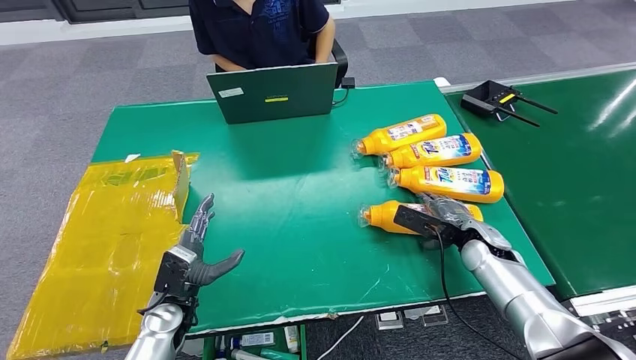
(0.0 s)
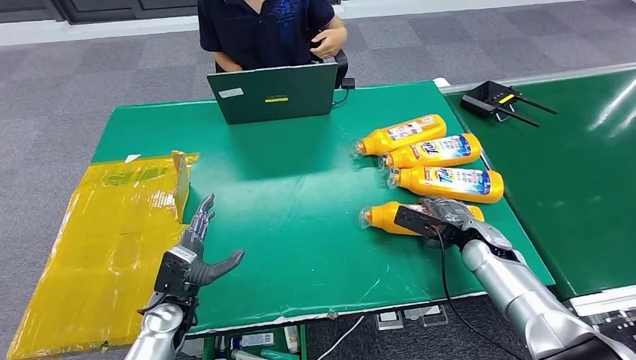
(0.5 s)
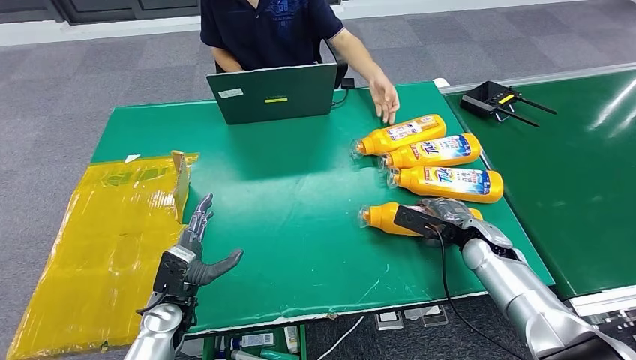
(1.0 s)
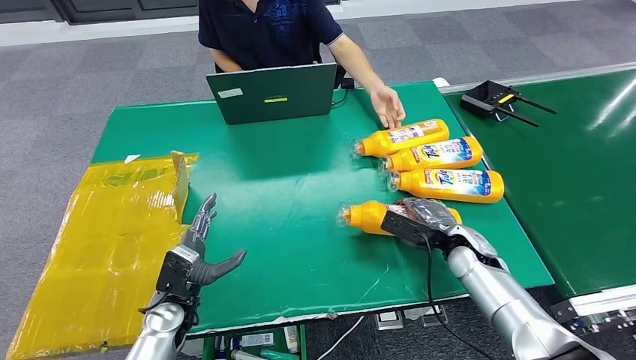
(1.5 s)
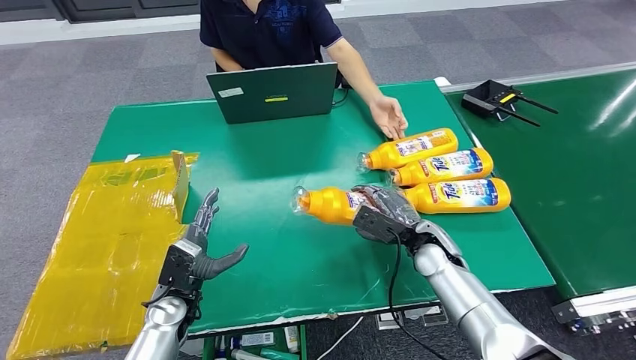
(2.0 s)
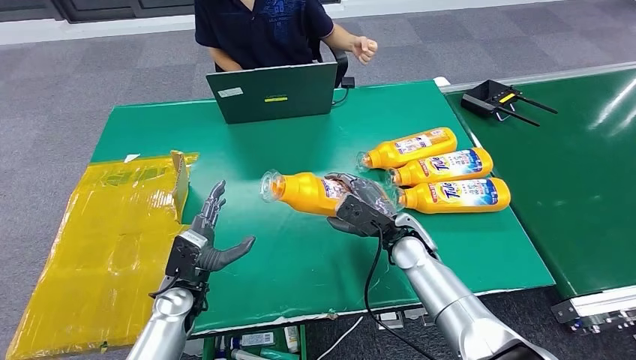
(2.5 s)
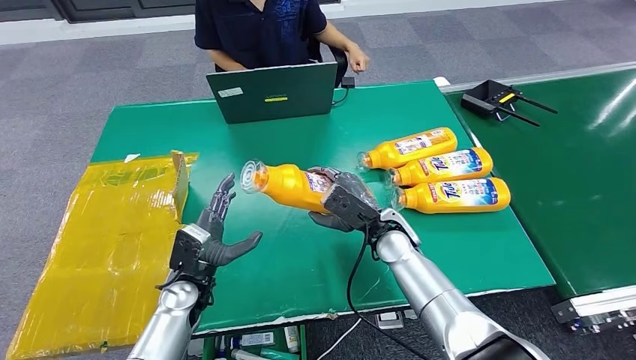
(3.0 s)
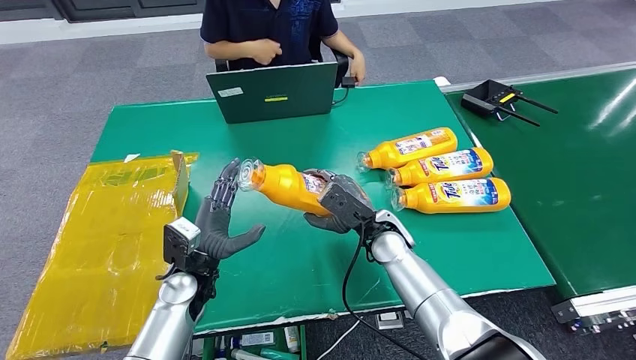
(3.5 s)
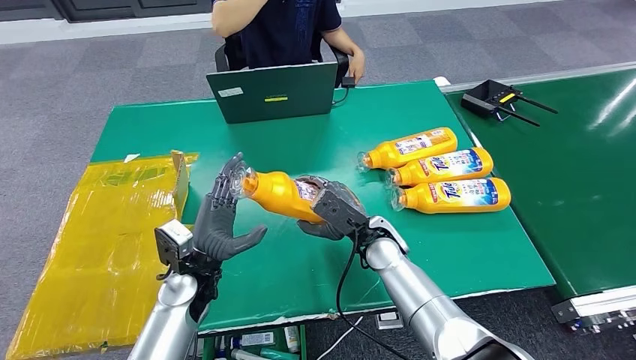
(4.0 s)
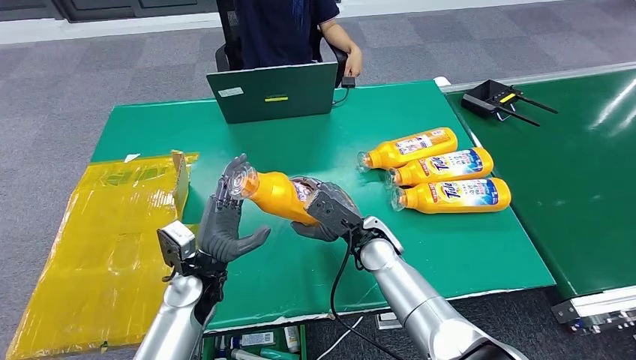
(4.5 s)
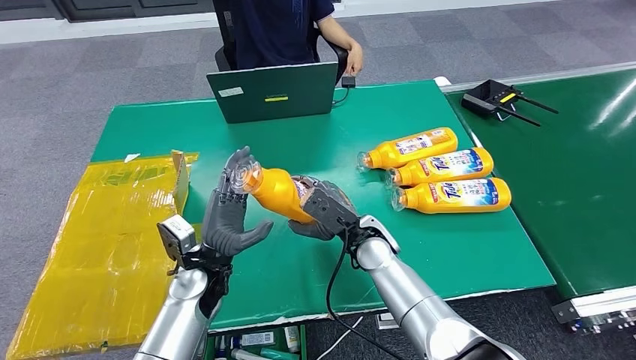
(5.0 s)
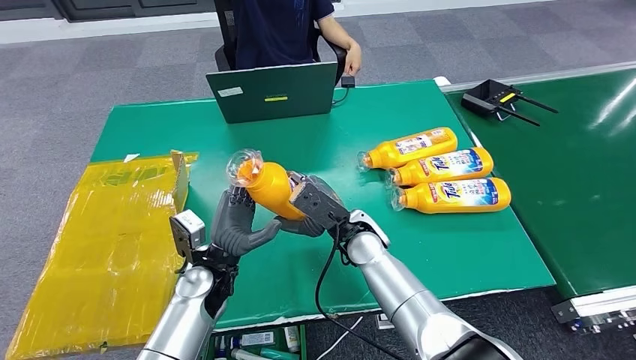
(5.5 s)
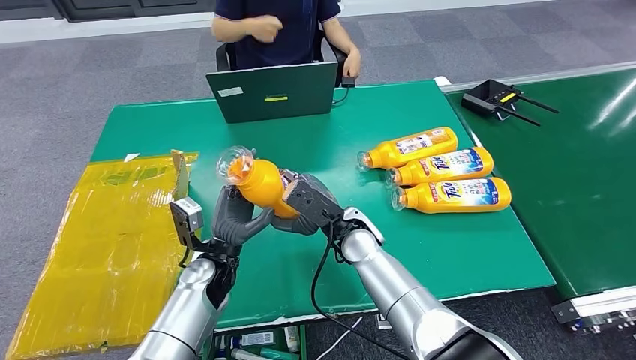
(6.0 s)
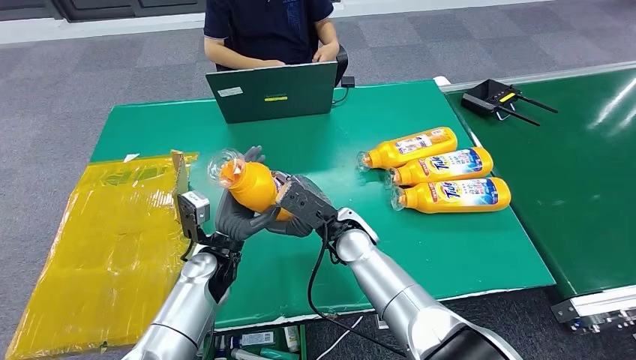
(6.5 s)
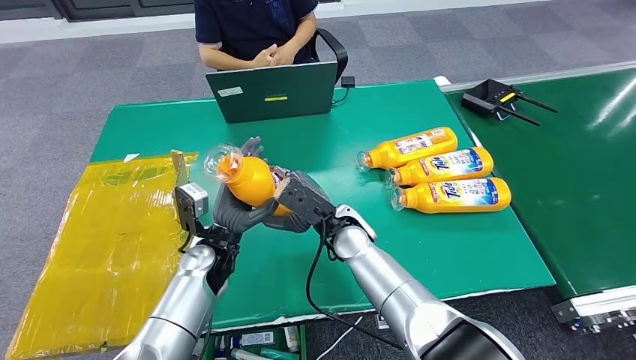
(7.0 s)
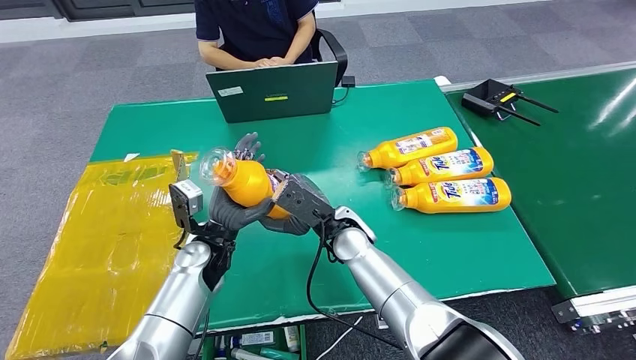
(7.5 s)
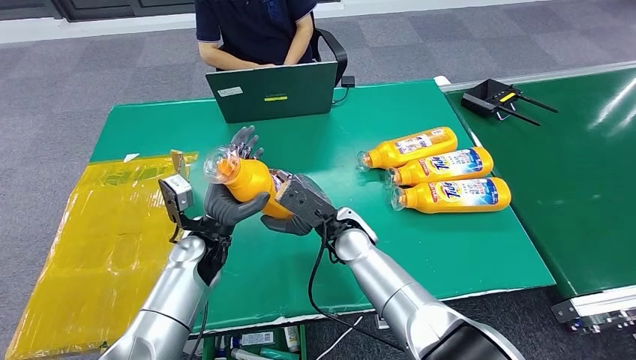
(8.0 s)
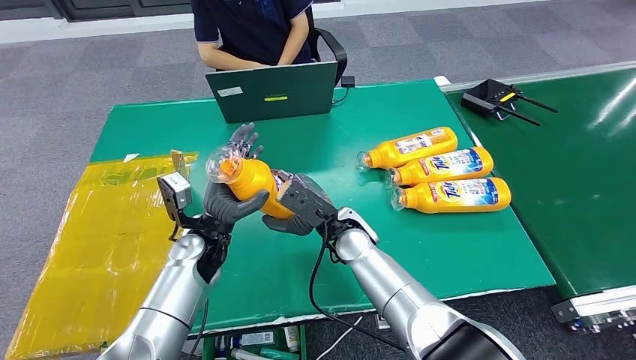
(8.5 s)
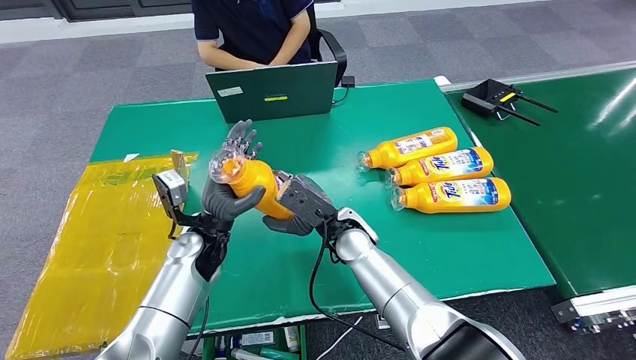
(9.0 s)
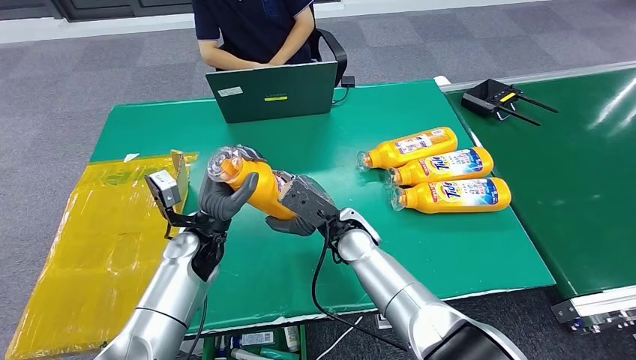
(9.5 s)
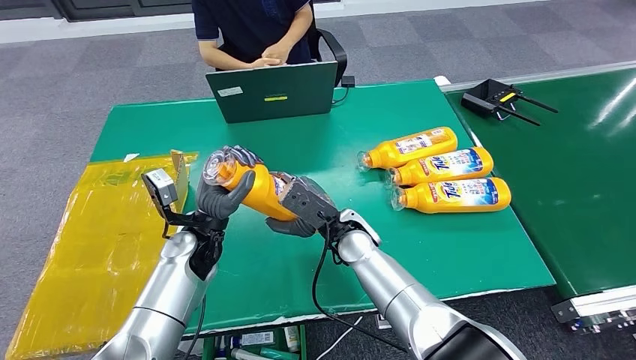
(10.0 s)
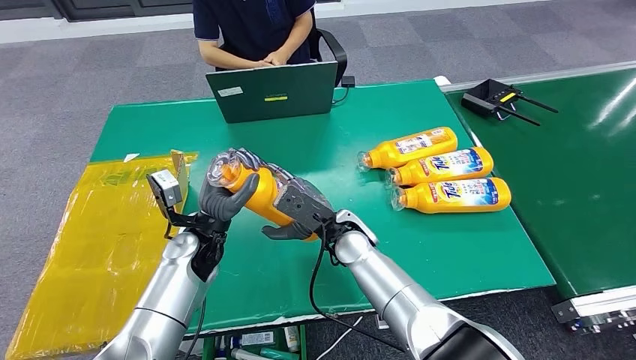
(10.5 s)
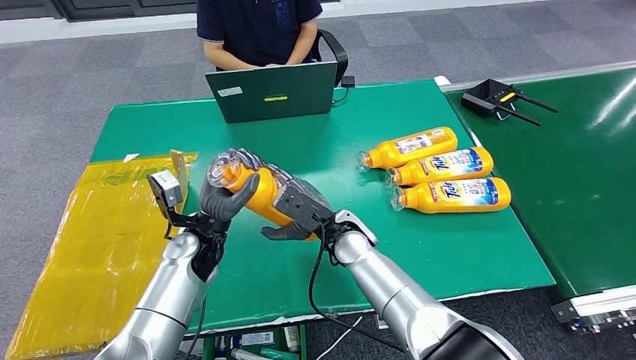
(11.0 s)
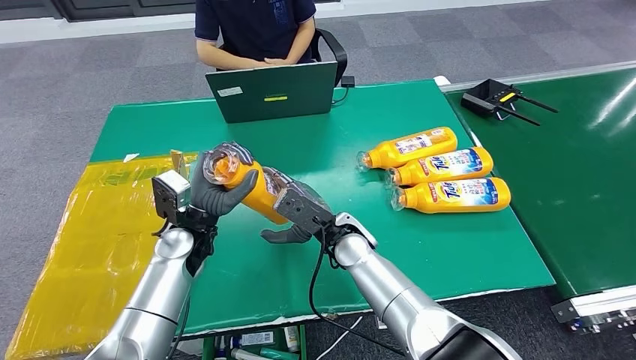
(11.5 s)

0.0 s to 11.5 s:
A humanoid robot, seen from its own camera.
Step, 0.0 to 3.0 s: Pick up the bottle from the table.
0.0 to 2.0 s: The right hand heads to the left, covering some 10 cm.
2.0 to 4.0 s: The left hand moves upward and to the right, about 10 cm. The right hand moves to the left, approximately 10 cm.
4.0 to 6.0 s: The right hand heads to the left, covering some 5 cm.
6.0 to 9.5 s: The hands stay close to where they were, moving slightly.

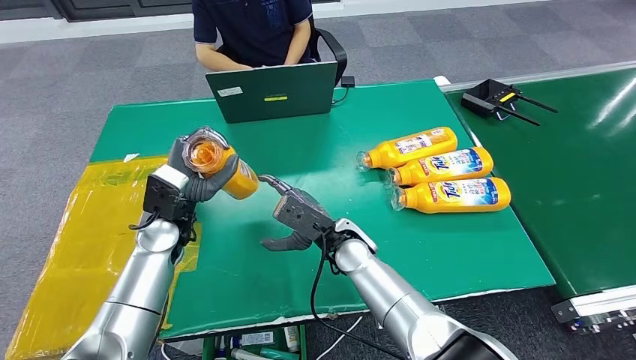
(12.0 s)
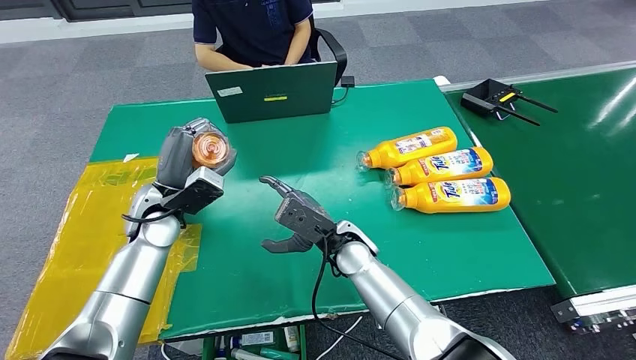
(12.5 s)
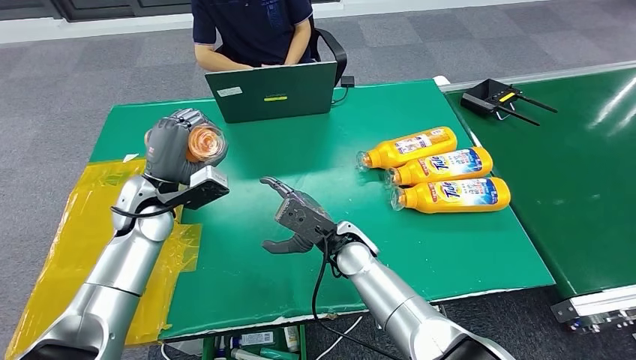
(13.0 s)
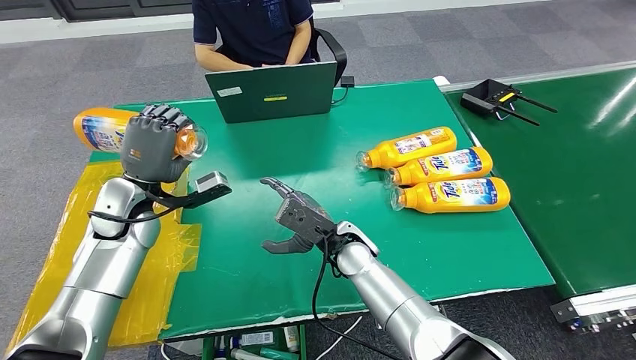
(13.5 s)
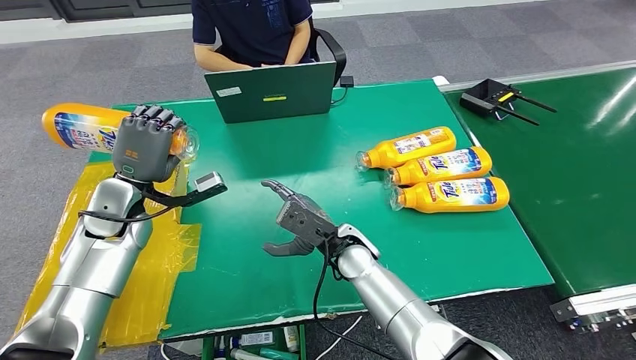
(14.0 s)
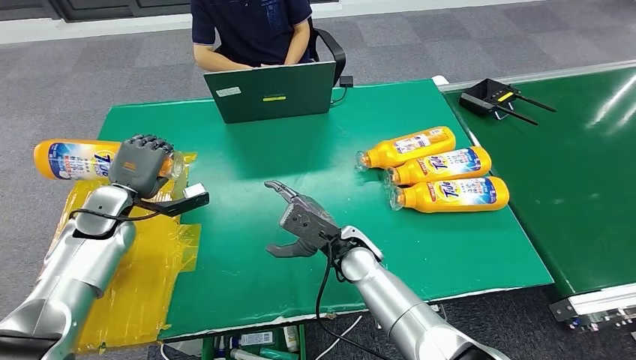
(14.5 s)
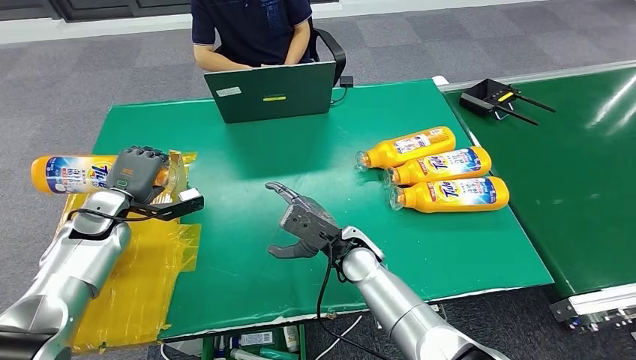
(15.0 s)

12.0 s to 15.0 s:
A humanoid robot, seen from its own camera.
Step, 12.0 to 15.0 s: Turn the bottle to the front side.
12.0 to 13.5 s: The left hand travels to the left by some 5 cm.
13.5 to 15.0 s: The left hand travels to the left and downward by approximately 10 cm.

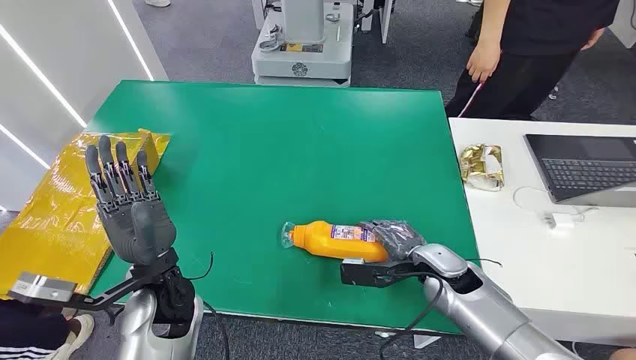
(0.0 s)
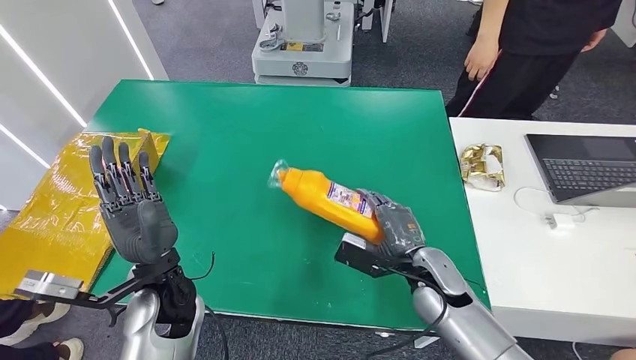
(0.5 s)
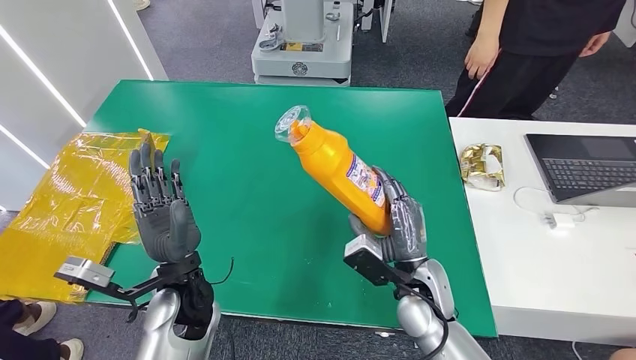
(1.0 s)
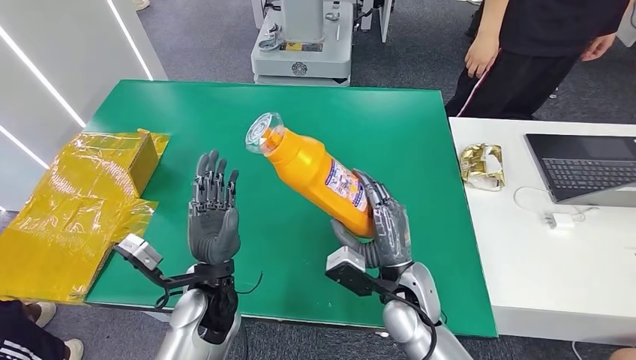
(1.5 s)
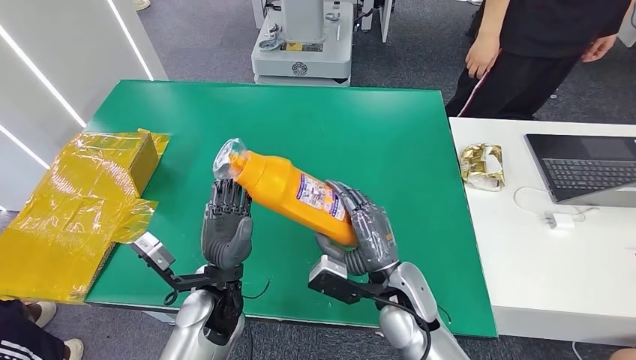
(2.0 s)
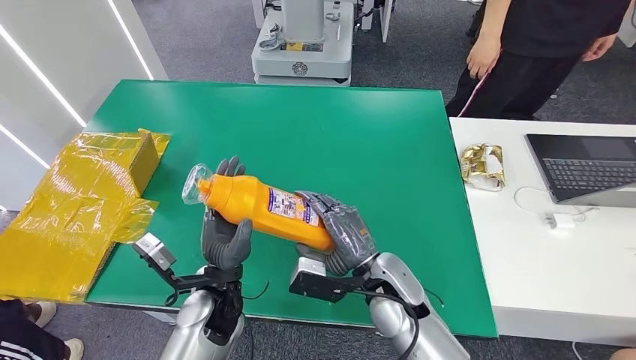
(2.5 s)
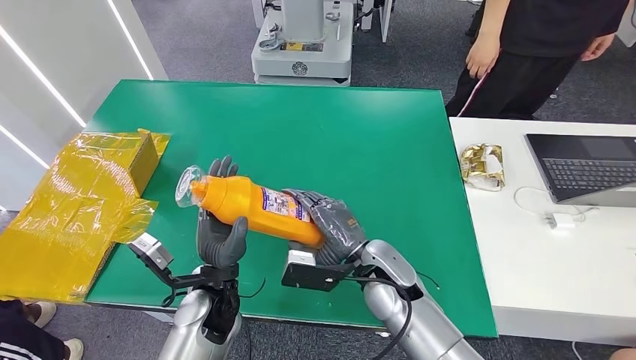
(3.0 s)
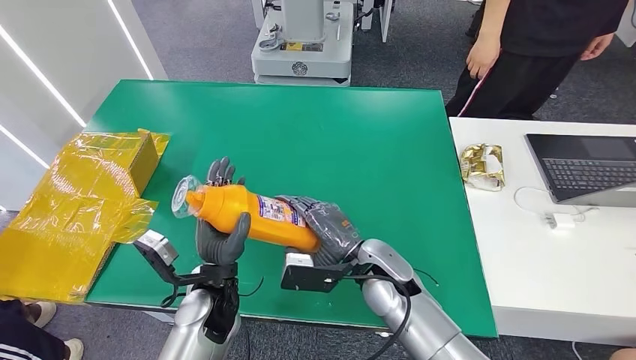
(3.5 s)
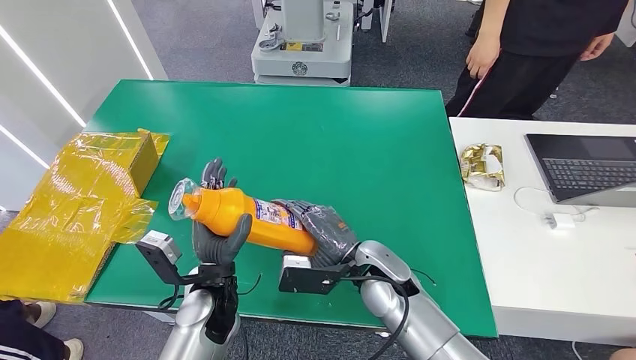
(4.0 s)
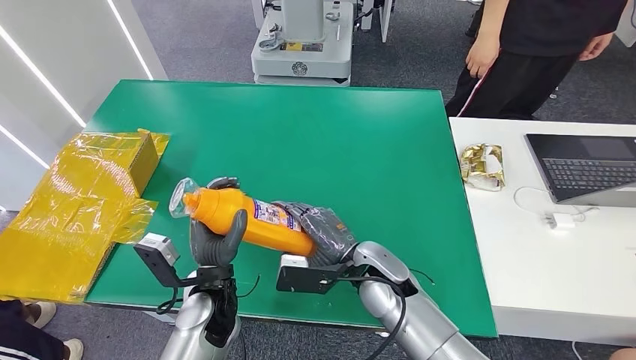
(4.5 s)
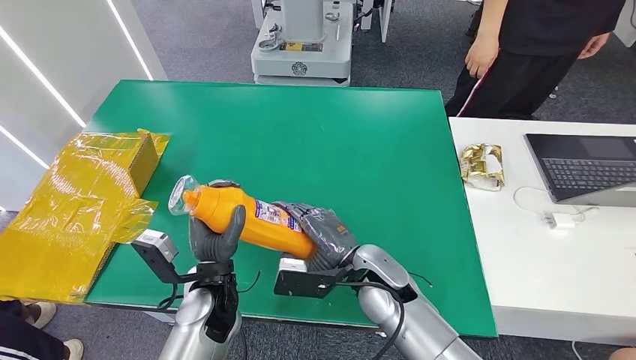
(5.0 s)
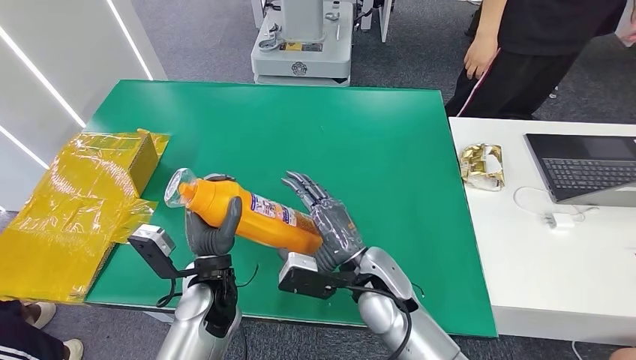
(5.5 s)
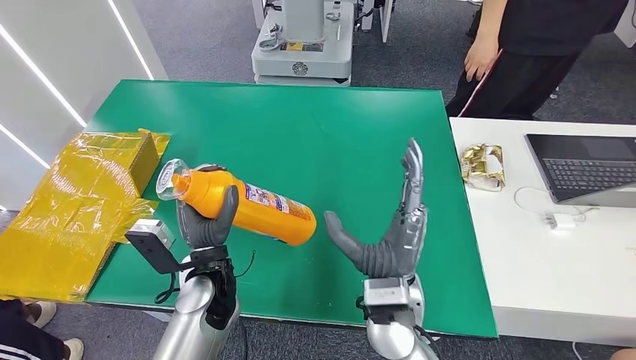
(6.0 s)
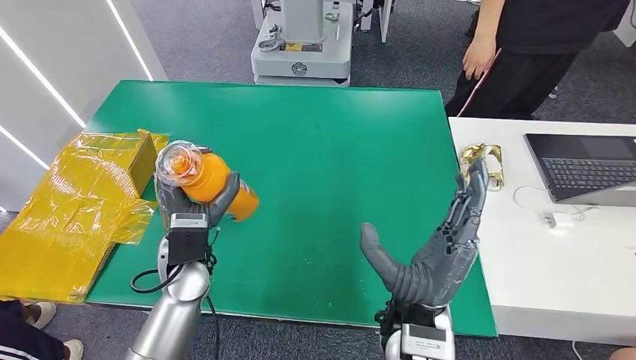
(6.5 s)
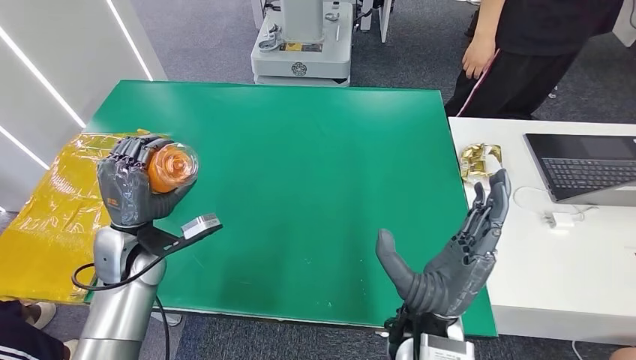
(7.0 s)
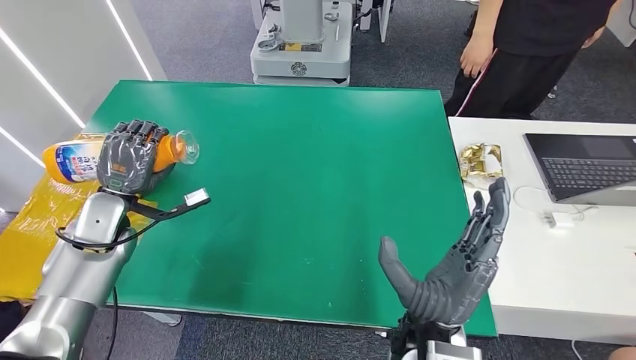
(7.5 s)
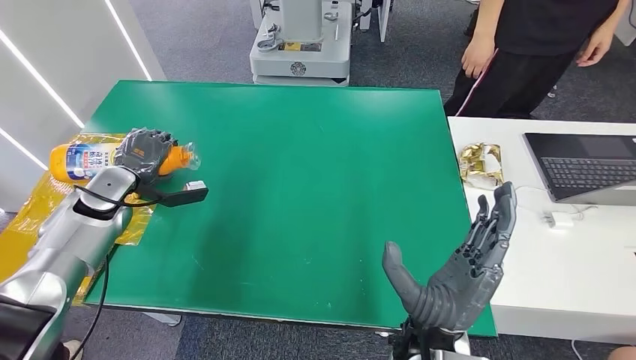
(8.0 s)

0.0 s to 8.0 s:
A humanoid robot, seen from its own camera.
Step, 0.0 to 2.0 s: Pick up the bottle from the table.
2.0 to 4.0 s: The right hand shifts by approximately 5 cm.
4.0 to 6.0 s: The right hand is displaced backward by some 5 cm.
